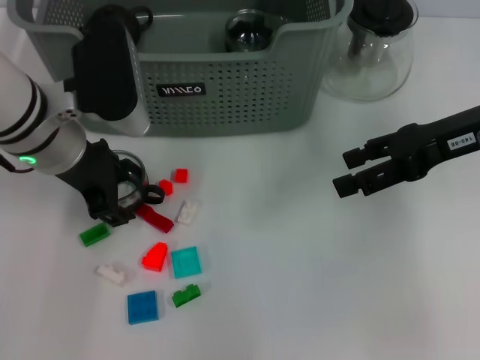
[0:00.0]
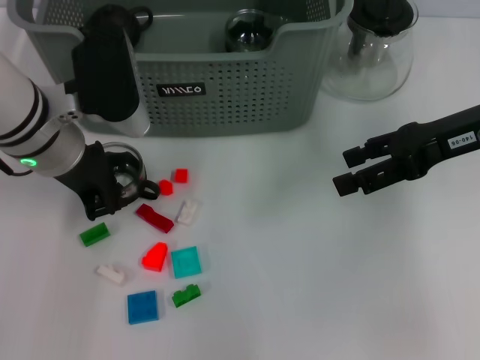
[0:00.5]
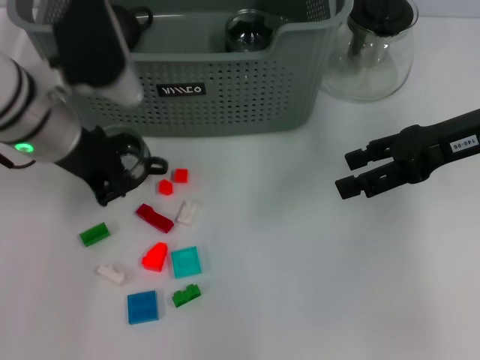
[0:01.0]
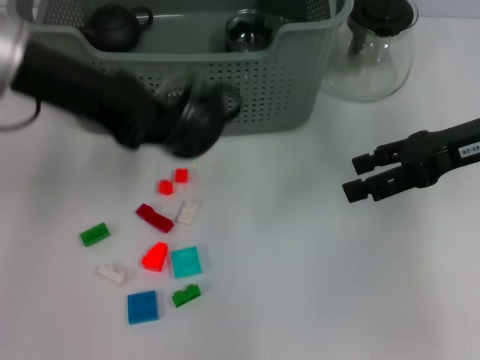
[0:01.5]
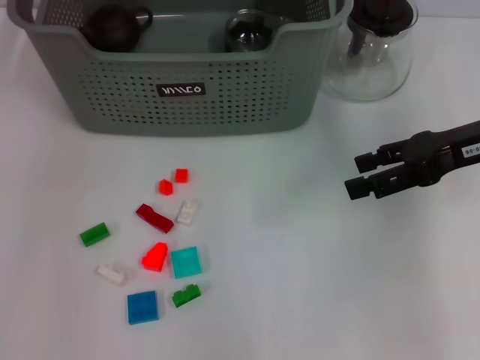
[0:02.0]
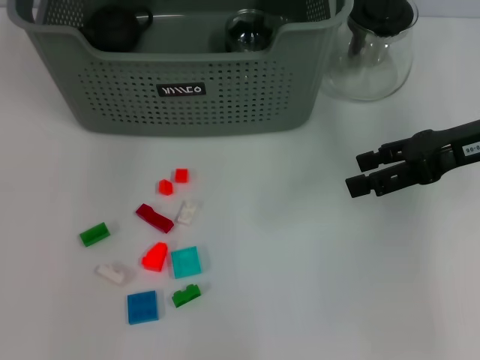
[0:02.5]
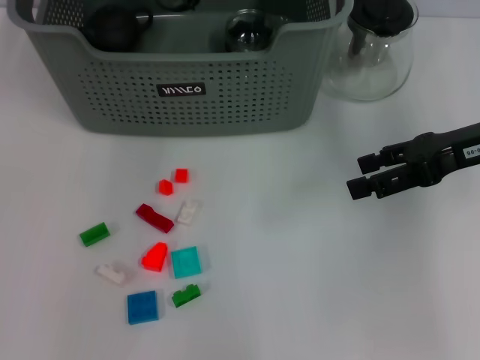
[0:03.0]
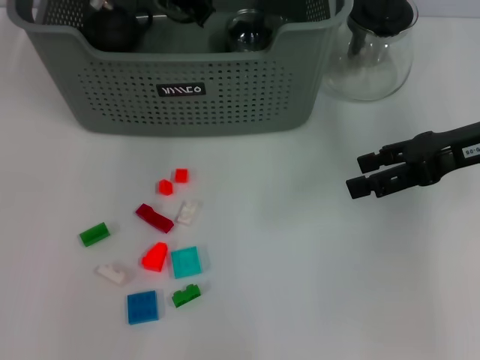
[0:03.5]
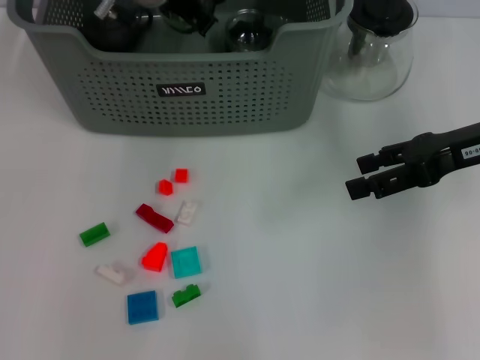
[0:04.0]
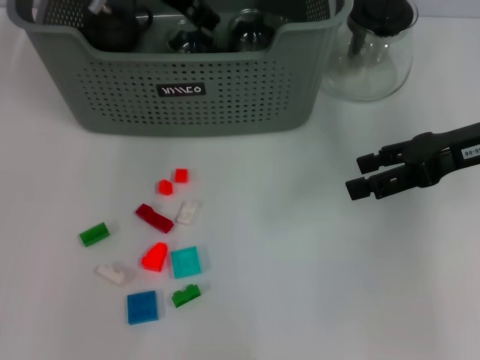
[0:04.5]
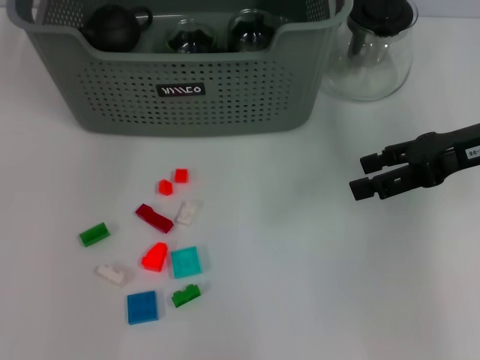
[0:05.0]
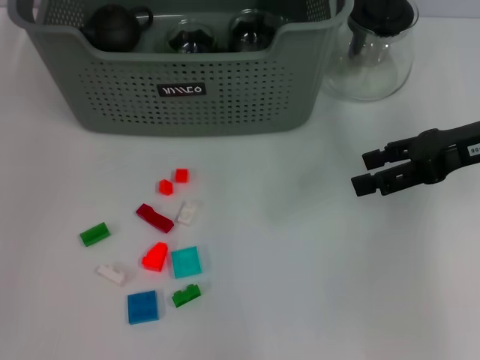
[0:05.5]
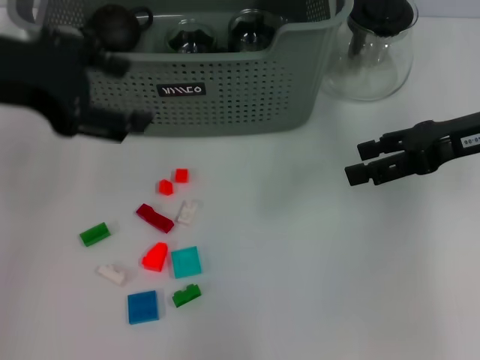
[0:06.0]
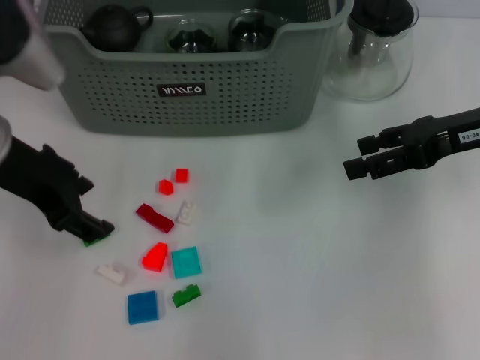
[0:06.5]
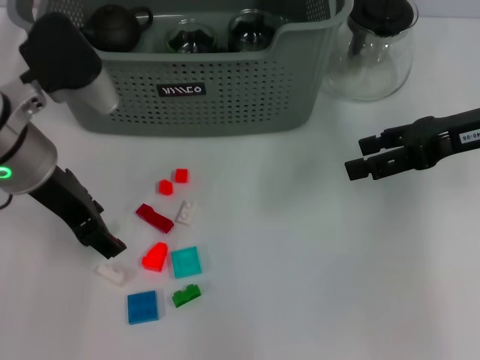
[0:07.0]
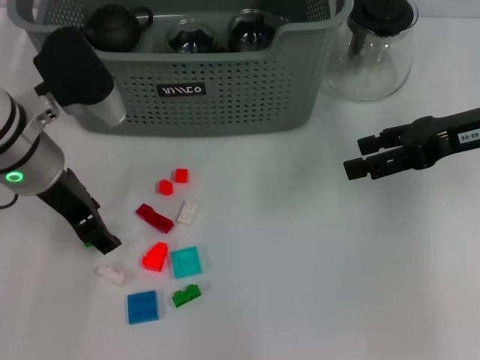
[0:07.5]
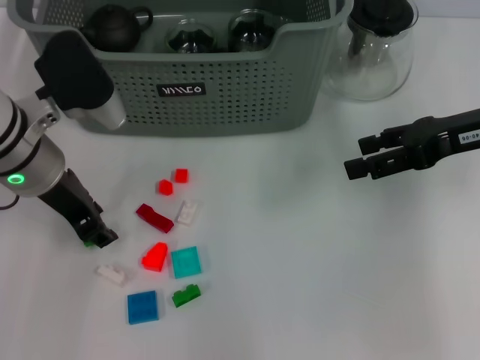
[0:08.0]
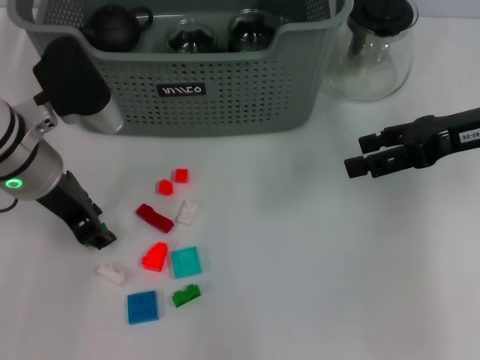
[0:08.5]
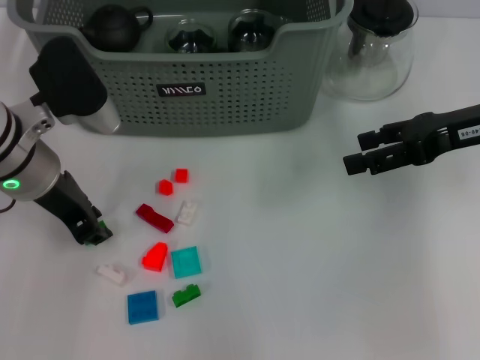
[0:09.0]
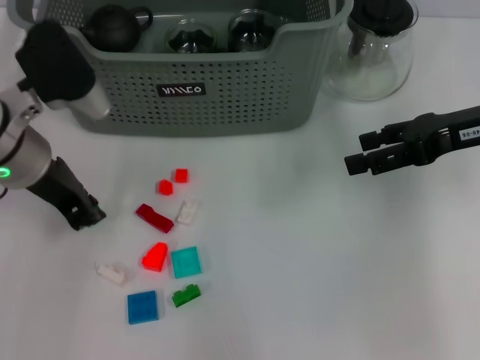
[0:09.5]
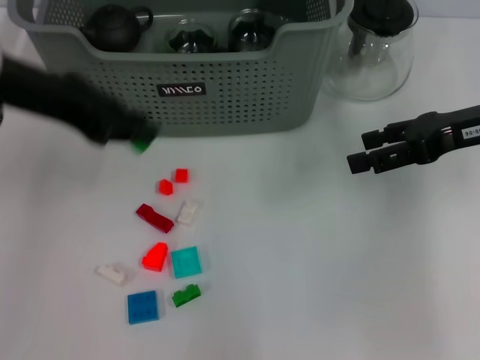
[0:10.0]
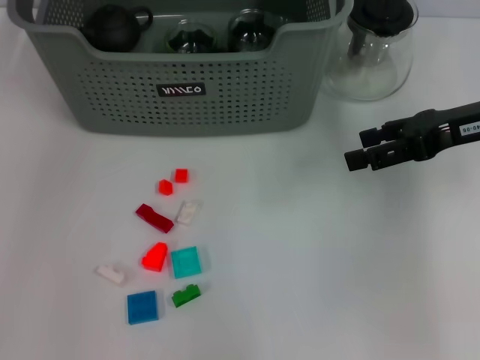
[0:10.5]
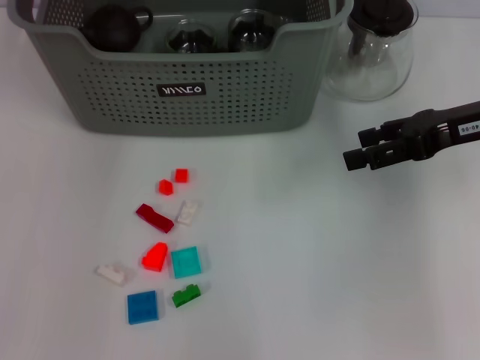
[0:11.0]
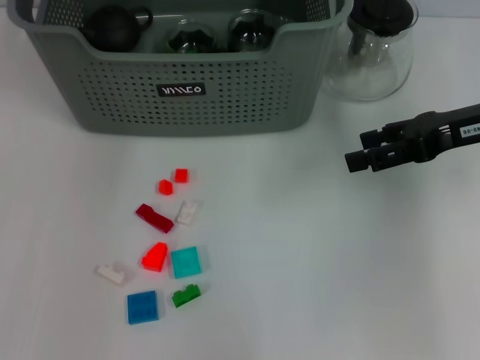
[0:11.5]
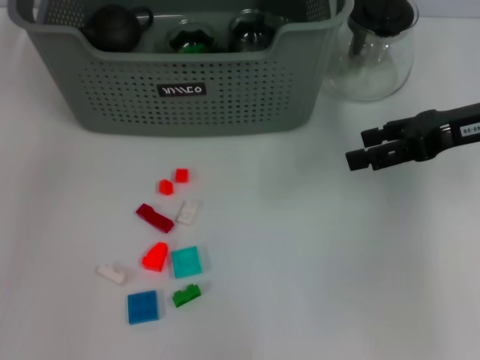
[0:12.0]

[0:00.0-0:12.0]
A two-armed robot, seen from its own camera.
Task of the whole recording: pick up the teacup on the table and place it into the storage bin, pick up the block on the table and place it into the storage bin.
Step, 1.0 to 4.0 s: Place the cup in the storage box with left gripper.
Step, 5.0 to 9.0 s: Grasp the green block with left gripper.
Step, 9.5 to 11.5 s: Place the green block in the storage box with left gripper.
0.0 to 2.0 s: The left gripper heads upward and forward, covering about 20 cm, and closes its fingers.
2.0 to 4.0 s: The left gripper shifts roughly 15 cm downward, to the right and forward.
4.0 to 6.0 s: The left gripper goes roughly 25 cm backward, to the left and upward, and opens its fingers.
6.0 to 8.0 s: The left gripper goes about 15 cm downward.
8.0 to 10.0 s: The left gripper shifts about 10 cm upward, and closes its fingers.
10.0 to 12.0 s: The left gripper moves upward and forward, some 10 cm, and opens.

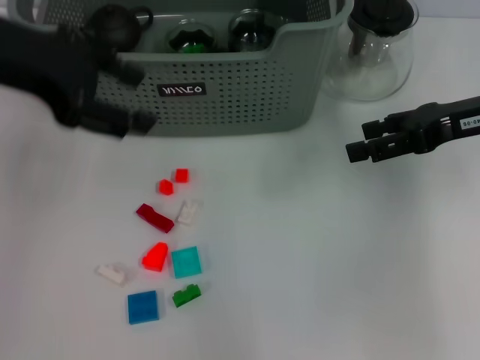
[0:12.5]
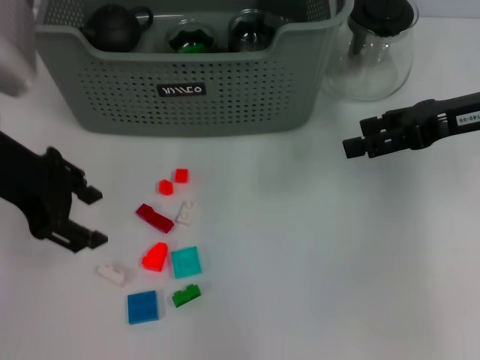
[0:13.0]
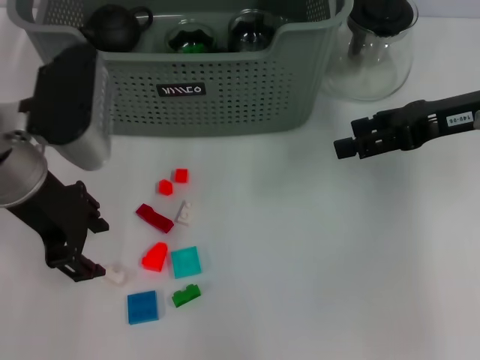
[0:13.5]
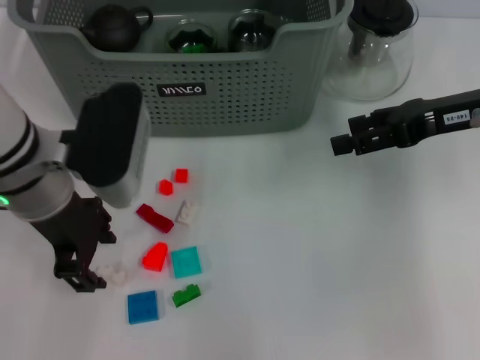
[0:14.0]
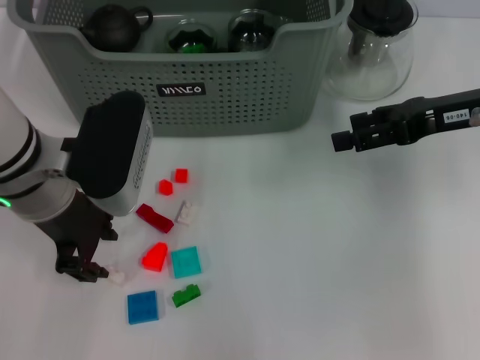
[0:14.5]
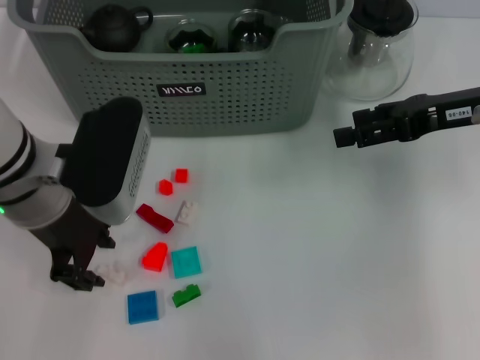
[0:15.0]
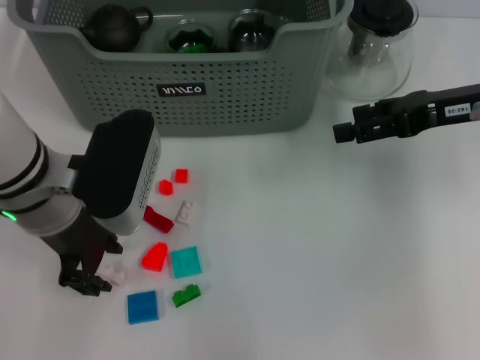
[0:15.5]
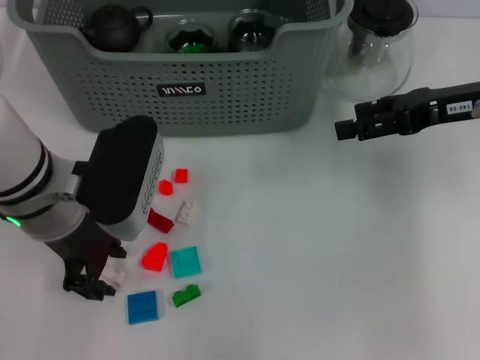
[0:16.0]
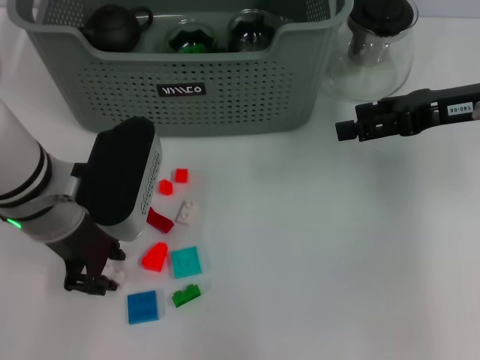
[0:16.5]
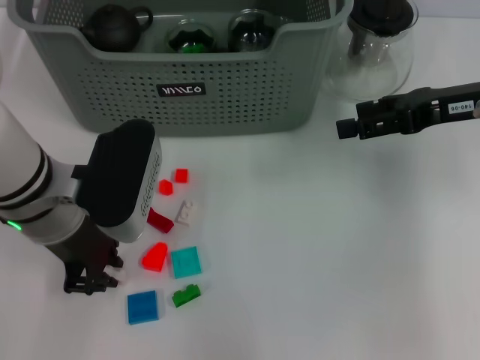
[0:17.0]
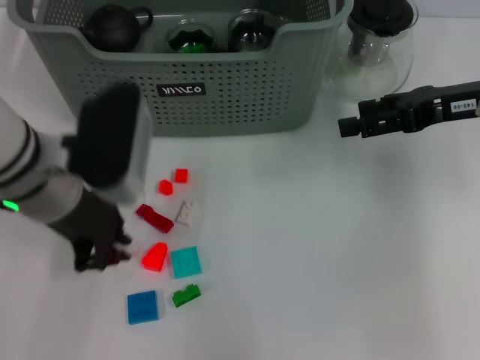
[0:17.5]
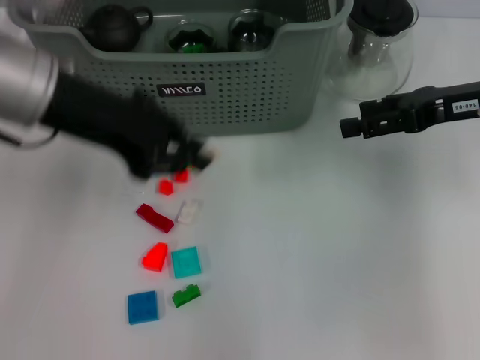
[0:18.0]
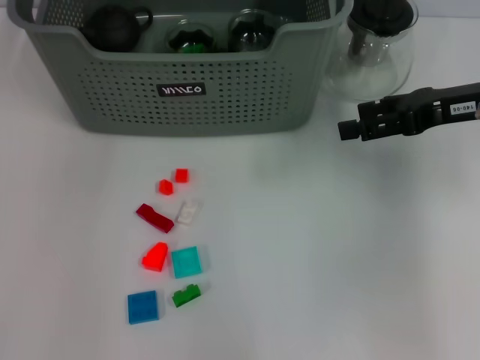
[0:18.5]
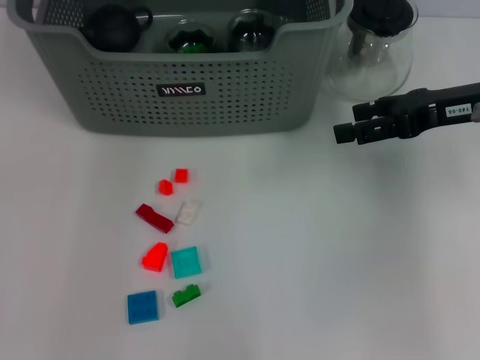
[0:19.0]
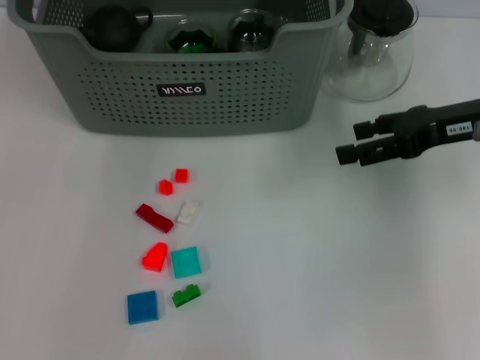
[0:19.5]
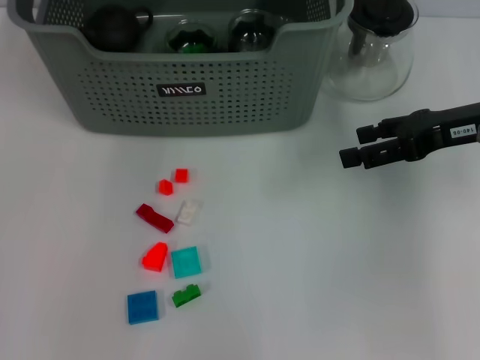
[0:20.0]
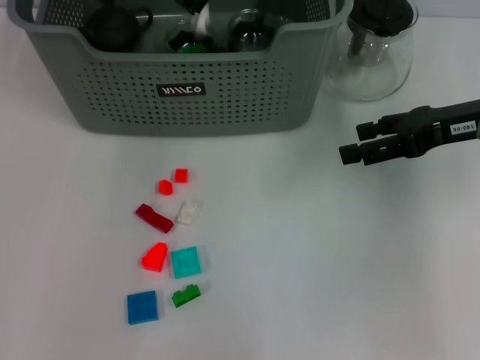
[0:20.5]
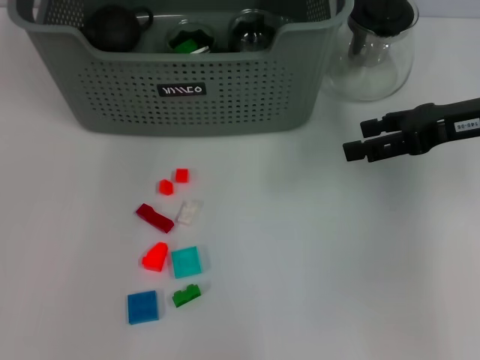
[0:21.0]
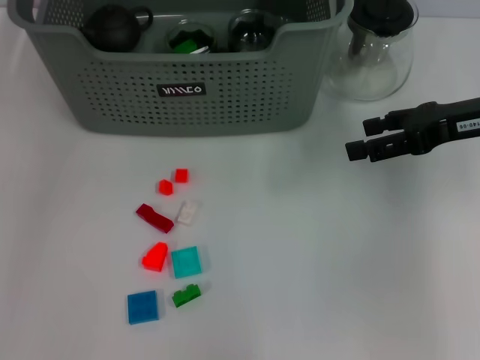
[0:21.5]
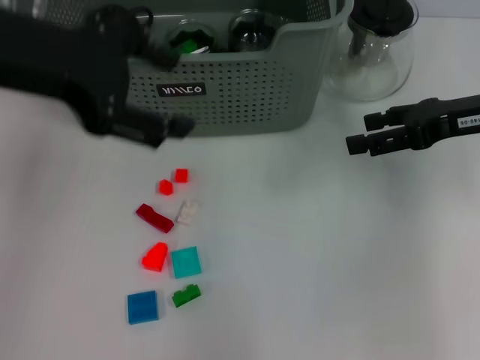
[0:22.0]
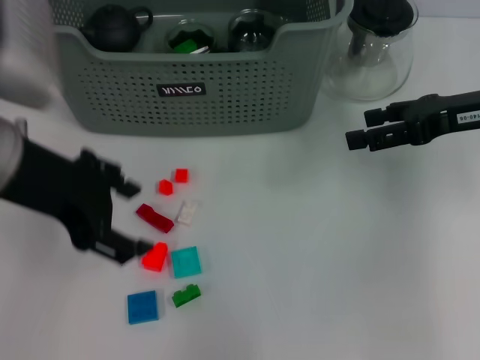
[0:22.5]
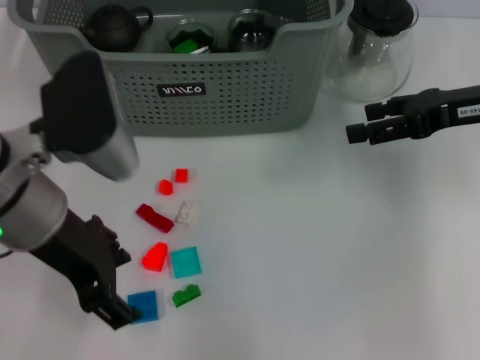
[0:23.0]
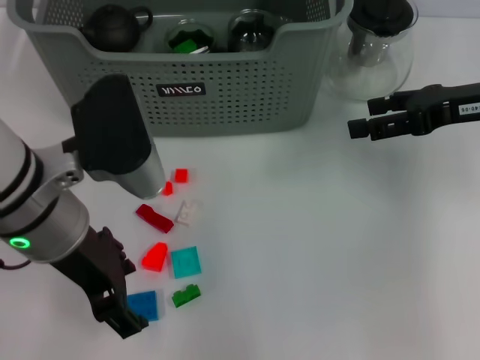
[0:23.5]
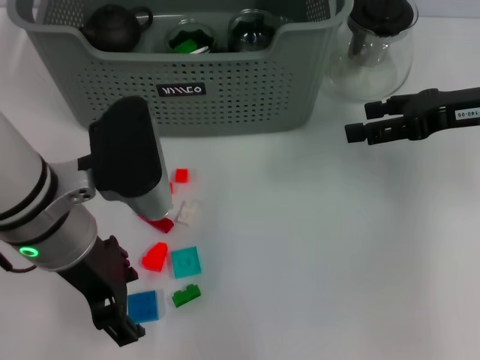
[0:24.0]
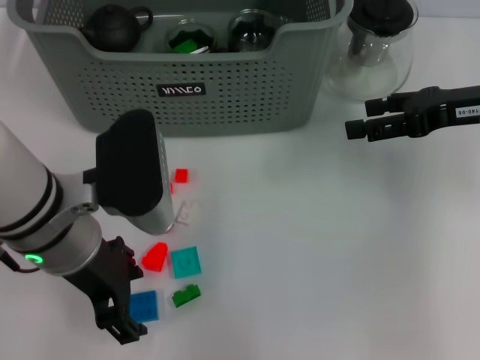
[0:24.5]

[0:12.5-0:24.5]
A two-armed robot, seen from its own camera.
Task of the whole recording: pick up the teacup on the table and place it into the storage bin, pick up the block on the table and place it into the storage bin.
Step, 12.5 to 17.0 s: Grasp the white block with left gripper.
Step, 17.5 to 20.5 s: Place the white block in the storage box with left gripper.
12.5 to 14.5 s: The left gripper moves downward and to the right, about 15 cm.
14.5 to 16.5 s: The grippers move only a little.
16.5 to 18.5 s: The left gripper shifts roughly 20 cm upward and forward.
20.5 to 22.5 s: The left gripper heads backward and to the left, covering about 20 cm, and opens.
22.5 to 24.5 s: The left gripper goes some 10 cm downward and to the right.

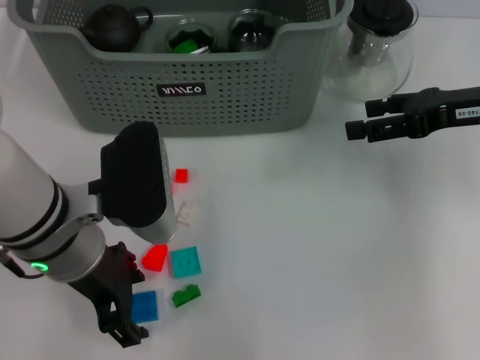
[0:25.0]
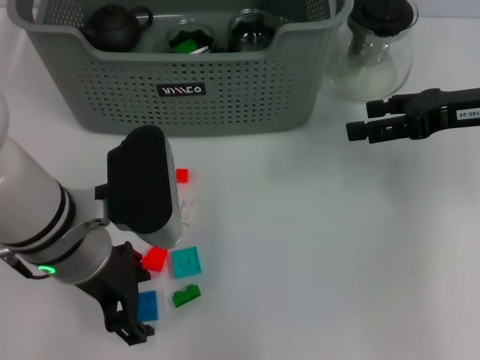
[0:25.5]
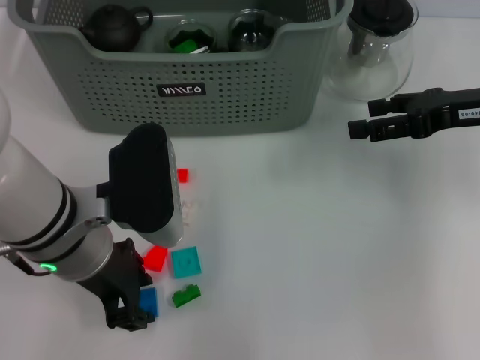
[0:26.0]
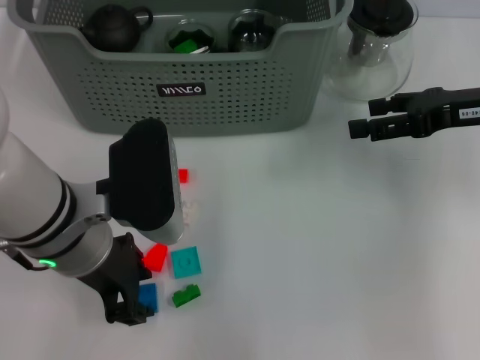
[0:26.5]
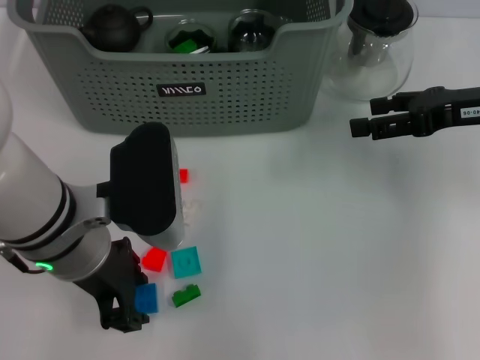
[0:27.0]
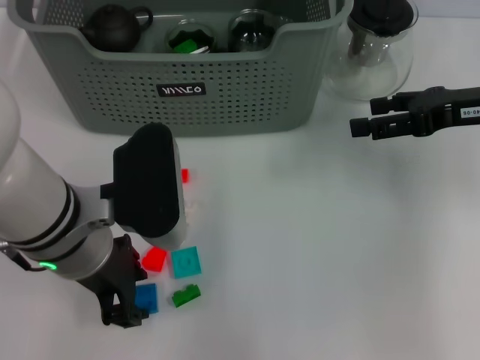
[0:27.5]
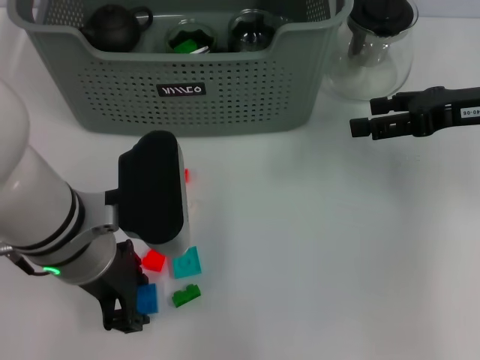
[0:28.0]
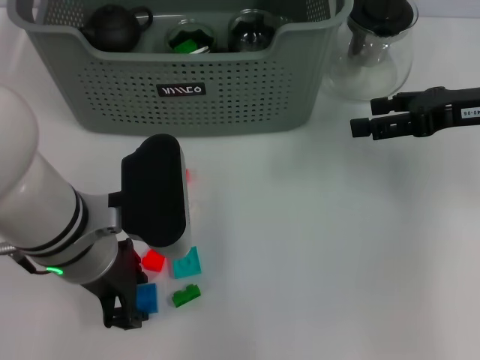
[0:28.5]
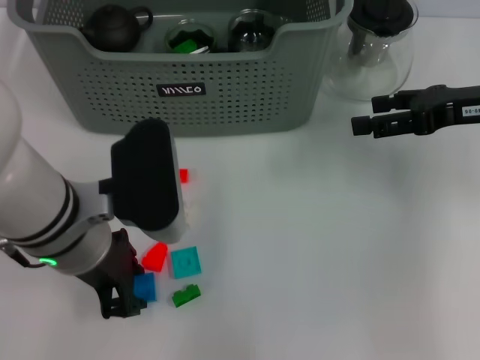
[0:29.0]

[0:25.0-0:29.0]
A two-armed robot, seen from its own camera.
Task of the whole recording: pick up the teacup on the table and place it into the storage bin, pick up the block on the table and place it into the storage bin.
Step, 25.0 to 28.5 s: Grasp the dark blue block with left gripper.
25.0 to 27.0 s: The left gripper closes up.
27.0 to 29.0 s: Both grippers stay put.
